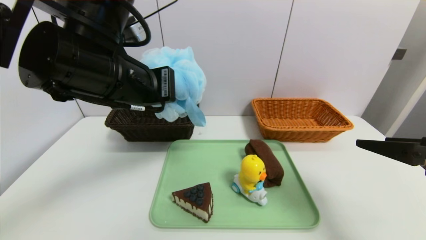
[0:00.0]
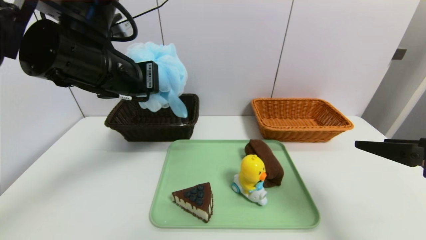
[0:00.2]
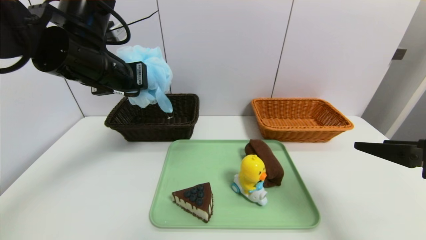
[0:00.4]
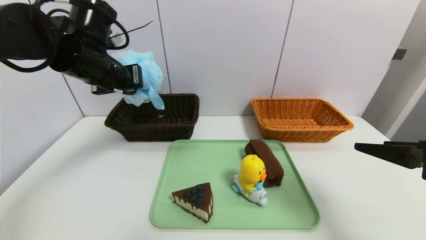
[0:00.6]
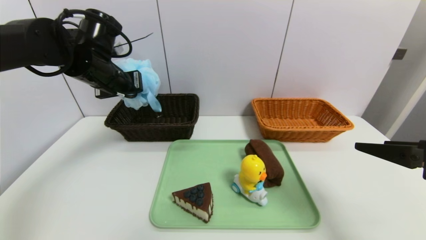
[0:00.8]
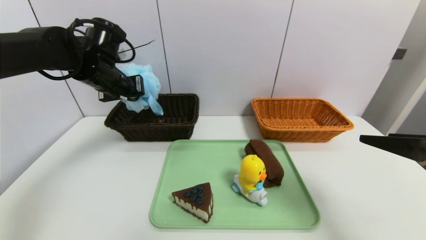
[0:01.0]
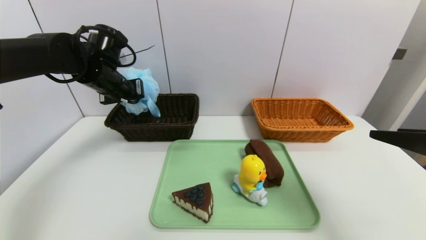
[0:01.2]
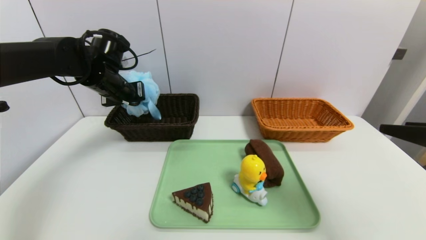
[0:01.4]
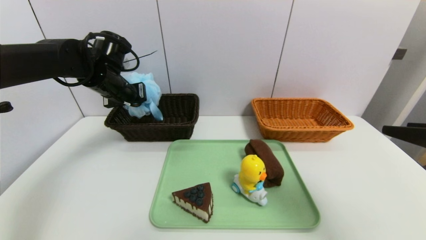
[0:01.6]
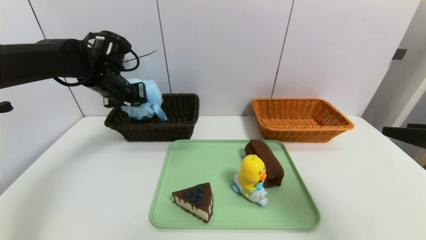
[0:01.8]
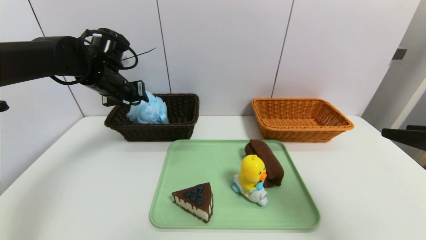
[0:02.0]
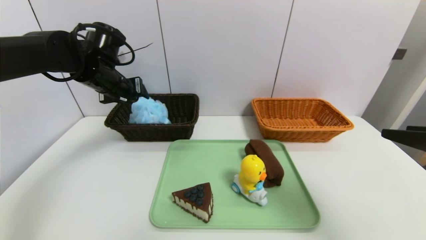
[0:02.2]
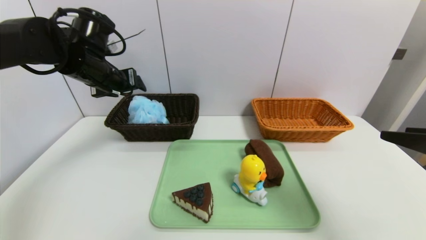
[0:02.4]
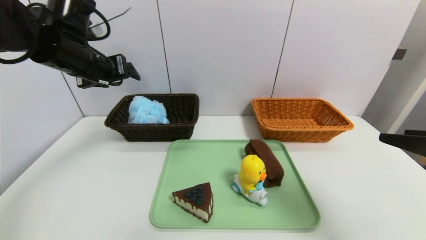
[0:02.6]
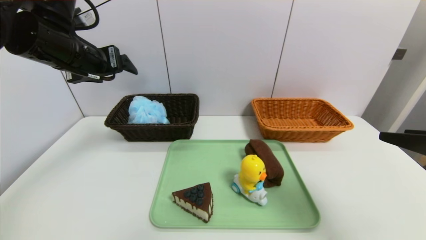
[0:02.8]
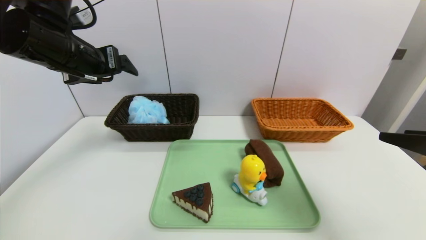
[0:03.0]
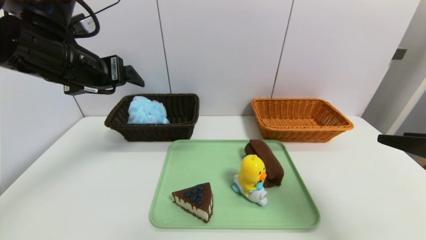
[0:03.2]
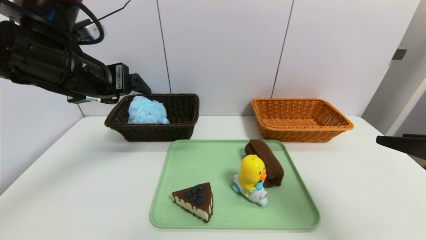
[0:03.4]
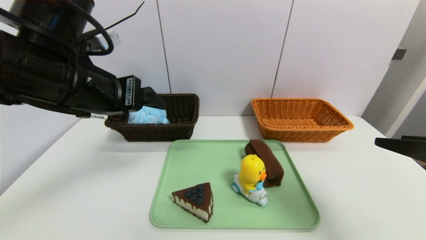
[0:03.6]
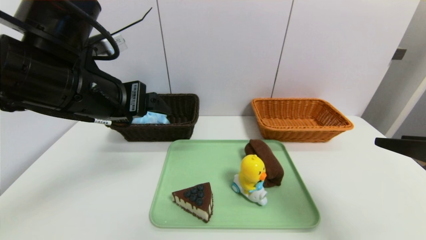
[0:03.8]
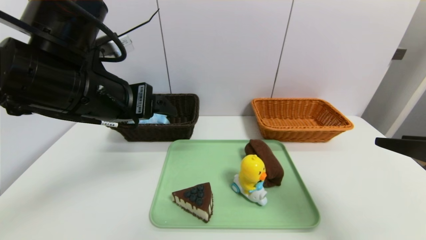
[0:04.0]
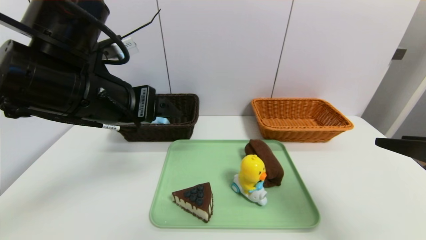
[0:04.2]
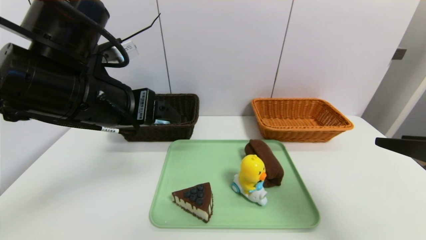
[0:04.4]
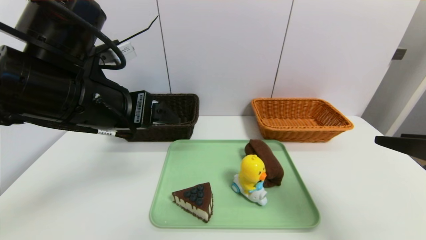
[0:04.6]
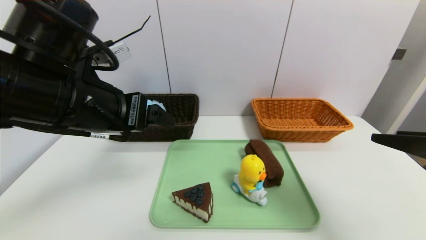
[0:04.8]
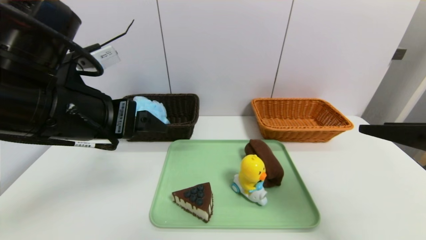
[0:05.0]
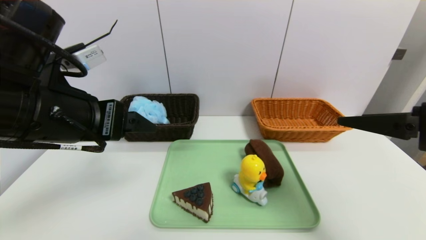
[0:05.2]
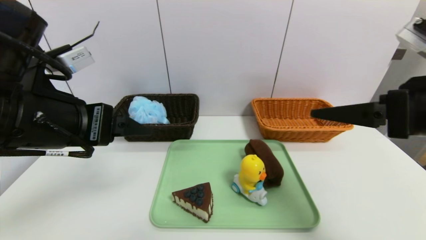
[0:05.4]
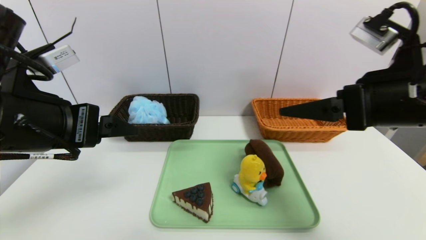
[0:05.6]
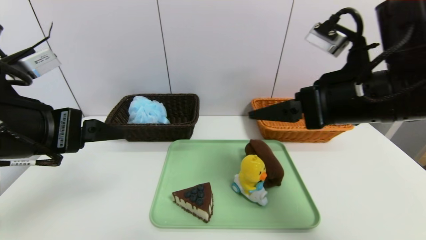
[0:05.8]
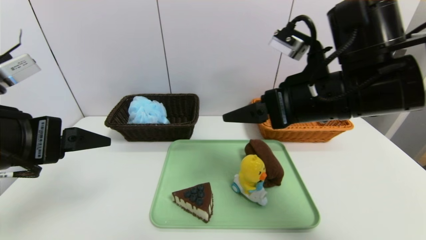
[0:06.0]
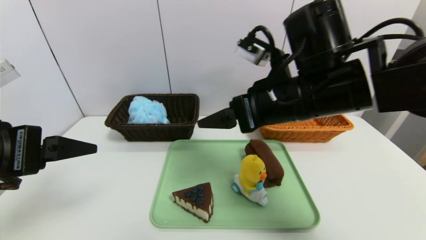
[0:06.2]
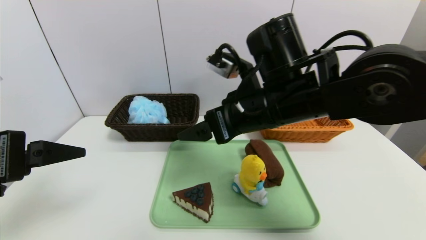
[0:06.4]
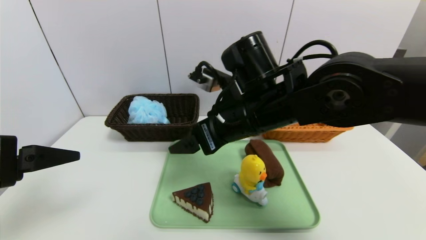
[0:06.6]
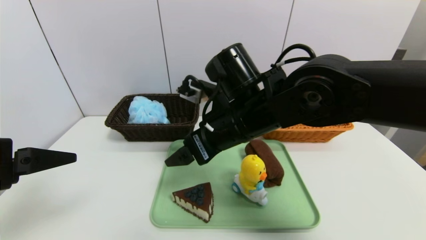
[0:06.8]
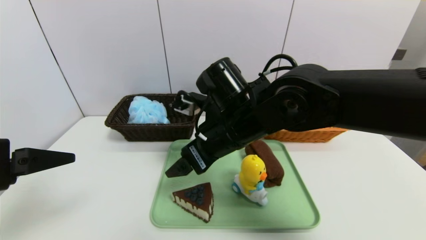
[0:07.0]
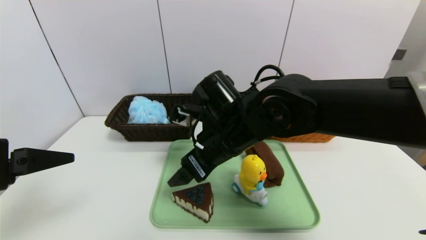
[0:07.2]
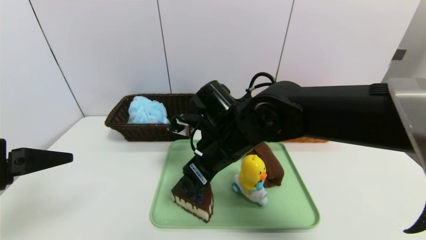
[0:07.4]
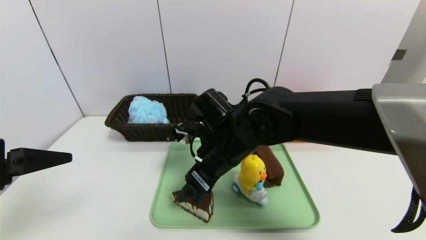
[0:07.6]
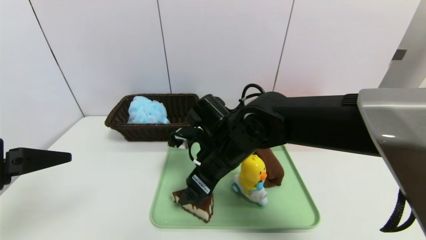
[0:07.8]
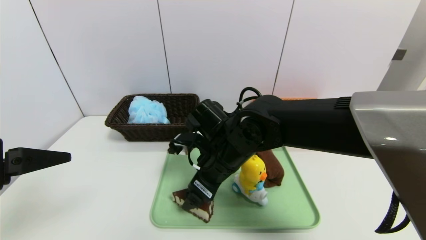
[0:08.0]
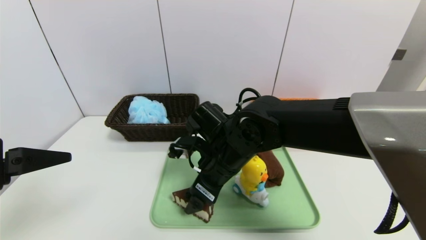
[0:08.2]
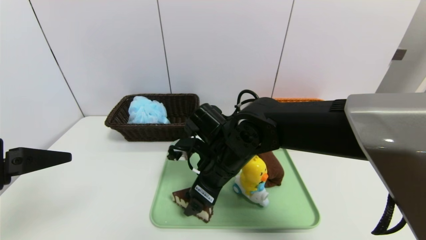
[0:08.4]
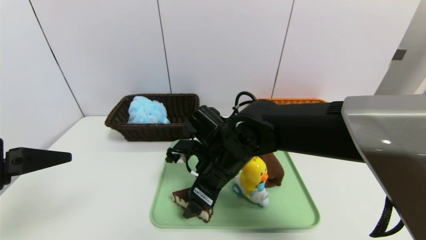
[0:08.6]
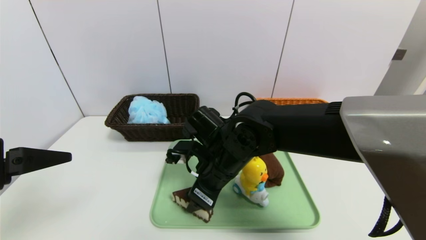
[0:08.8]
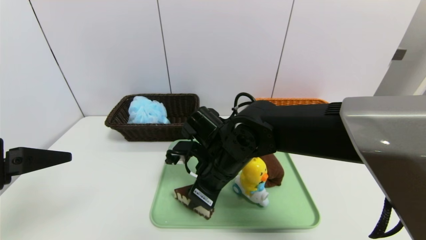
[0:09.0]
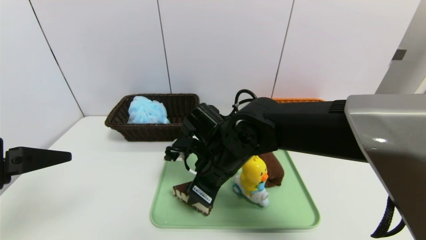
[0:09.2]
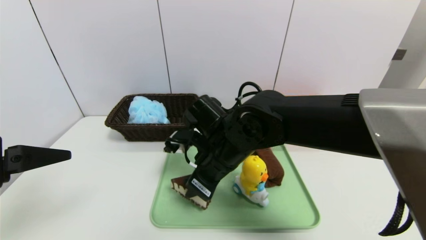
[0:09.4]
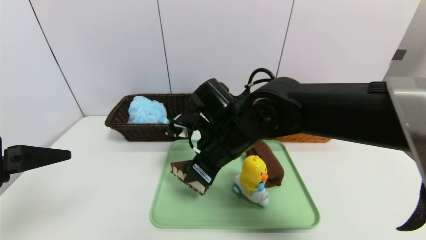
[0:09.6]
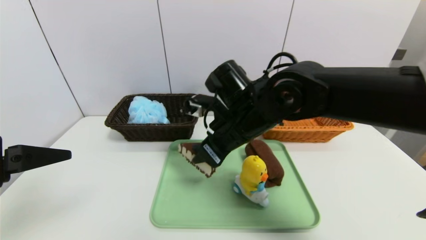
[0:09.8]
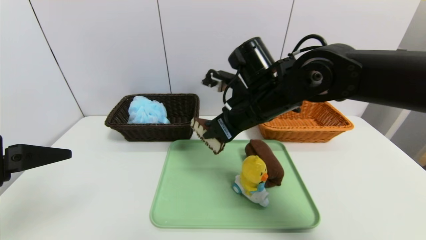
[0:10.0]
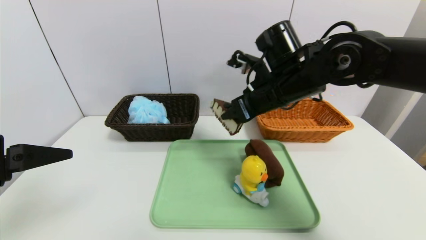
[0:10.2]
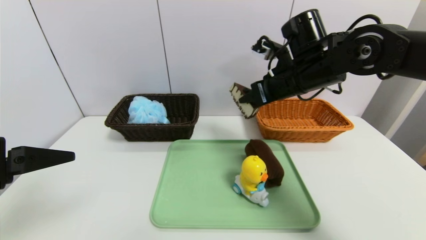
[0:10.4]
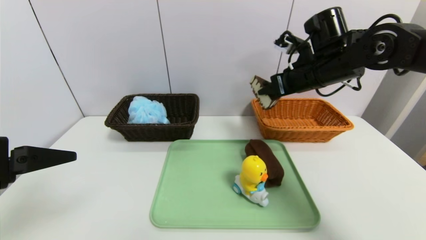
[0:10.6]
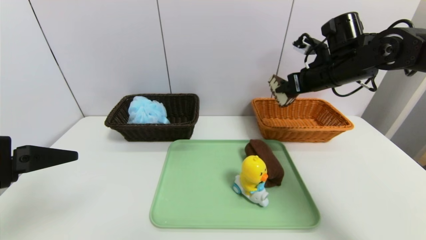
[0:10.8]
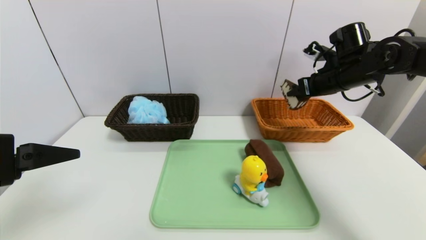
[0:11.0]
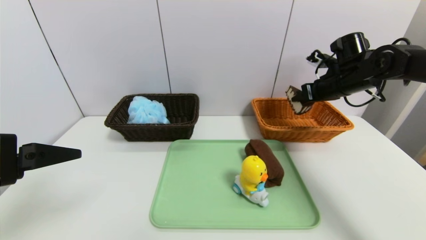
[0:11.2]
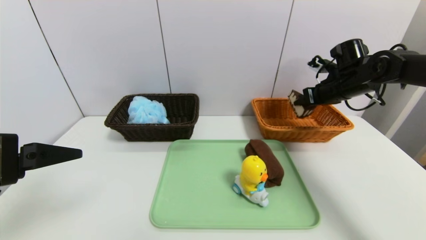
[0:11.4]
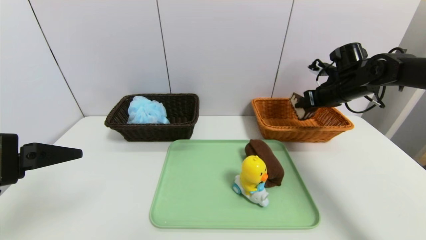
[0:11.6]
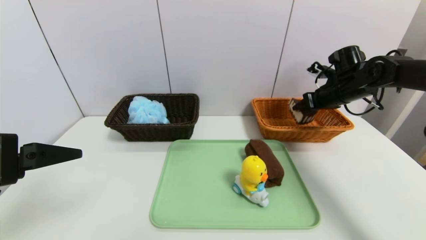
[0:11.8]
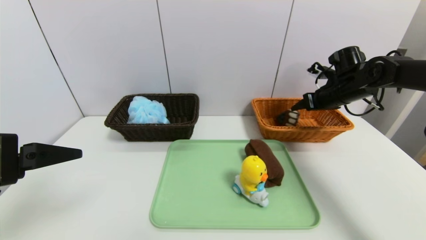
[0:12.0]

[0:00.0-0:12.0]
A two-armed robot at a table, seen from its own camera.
Task of the whole recording: place the food in the right basket with the right gripper, and place the non food items in the left basket with the left gripper.
Step, 0:00.0 to 0:02.2: Grasp the shower sphere and put it in the left basket.
0:00.0 to 0:01.6: The left gripper moves forward, to the left and downward, some 20 cm.
0:01.6 to 0:03.0: The left gripper moves backward and upward, roughly 15 cm, and opens its fingers.
0:03.0 to 0:04.4: The left gripper travels backward and to the right by about 10 cm.
0:04.4 to 0:06.0: The left gripper heads to the left and backward, covering some 10 cm, while the right gripper shifts about 20 cm to the left and forward.
0:06.0 to 0:07.6: The right gripper goes approximately 15 cm to the left and downward.
0:07.6 to 0:09.0: The right gripper closes up.
0:09.0 to 0:10.4: The right gripper moves to the right, upward and forward, some 20 cm.
0:10.4 to 0:12.0: The right gripper heads to the right, forward and downward, covering roughly 20 cm, and opens its fingers.

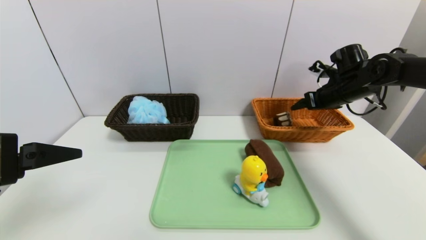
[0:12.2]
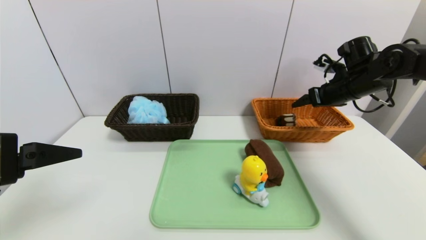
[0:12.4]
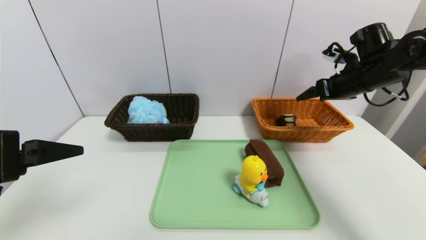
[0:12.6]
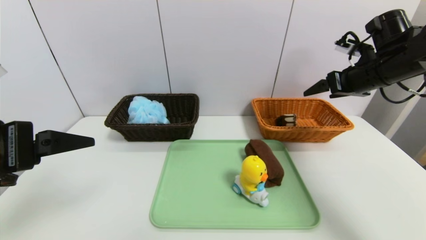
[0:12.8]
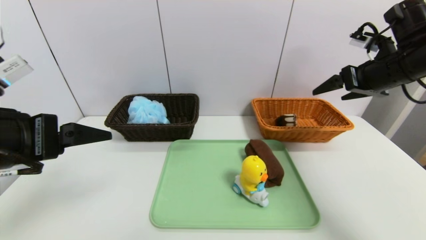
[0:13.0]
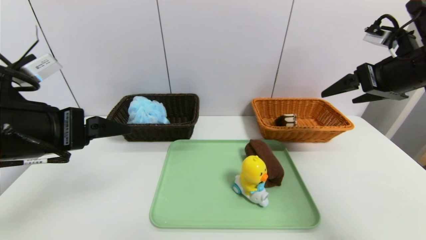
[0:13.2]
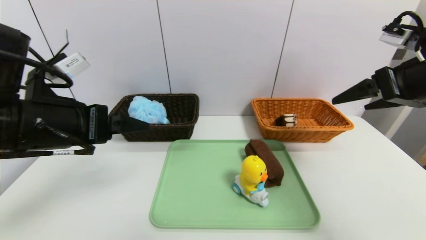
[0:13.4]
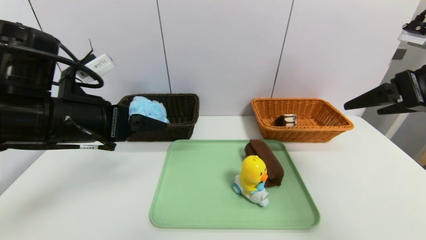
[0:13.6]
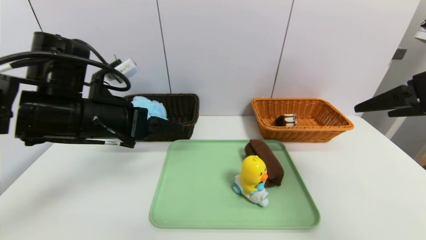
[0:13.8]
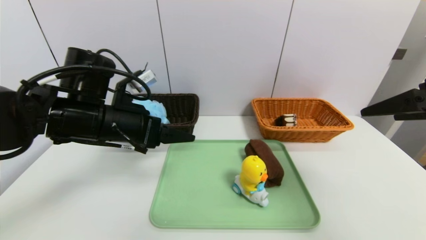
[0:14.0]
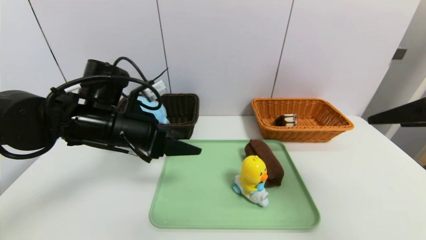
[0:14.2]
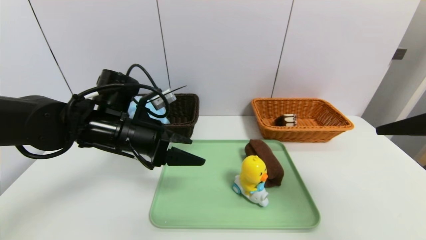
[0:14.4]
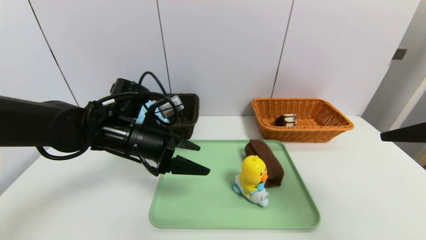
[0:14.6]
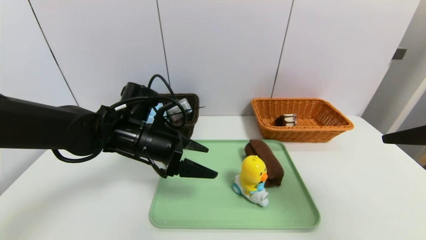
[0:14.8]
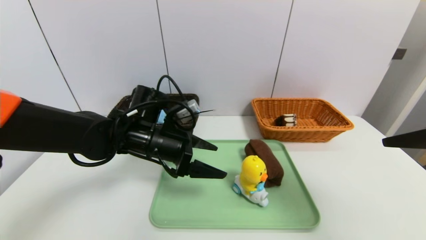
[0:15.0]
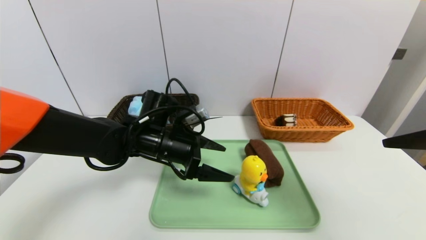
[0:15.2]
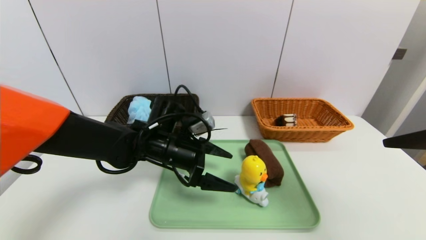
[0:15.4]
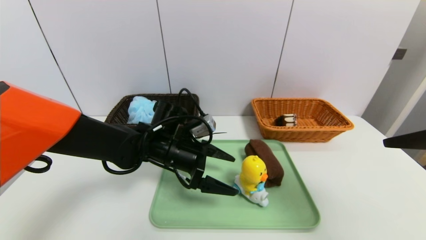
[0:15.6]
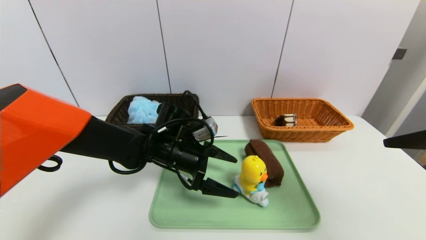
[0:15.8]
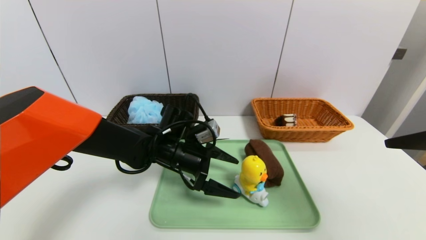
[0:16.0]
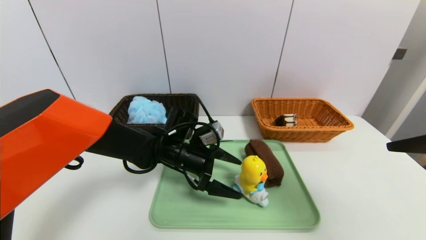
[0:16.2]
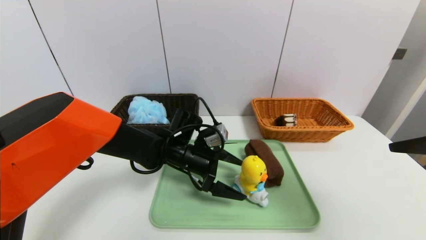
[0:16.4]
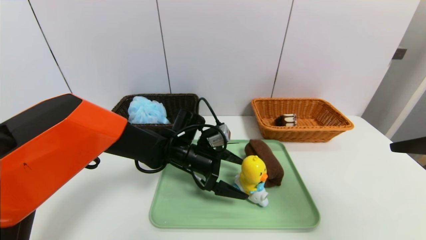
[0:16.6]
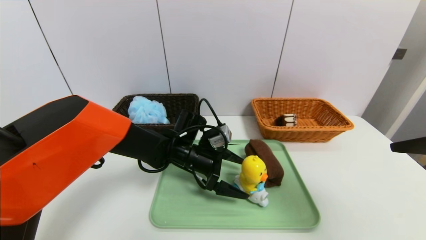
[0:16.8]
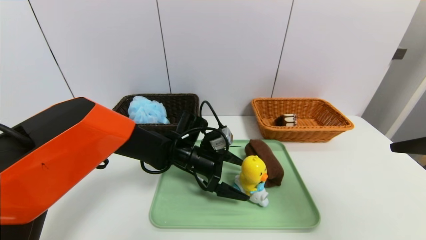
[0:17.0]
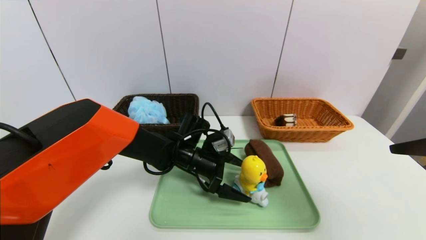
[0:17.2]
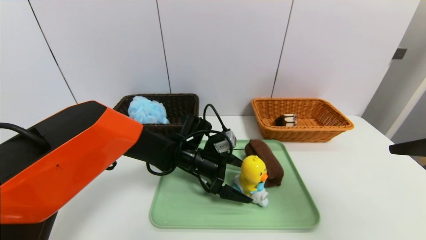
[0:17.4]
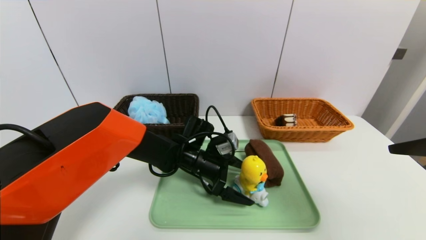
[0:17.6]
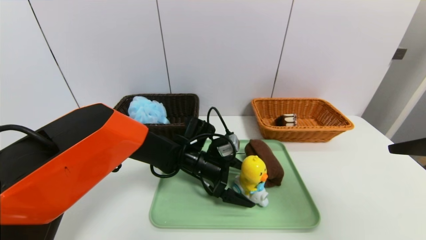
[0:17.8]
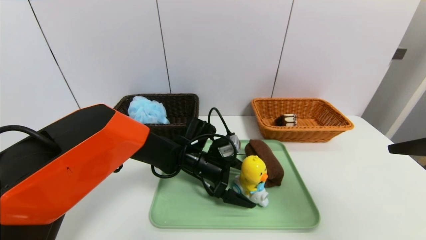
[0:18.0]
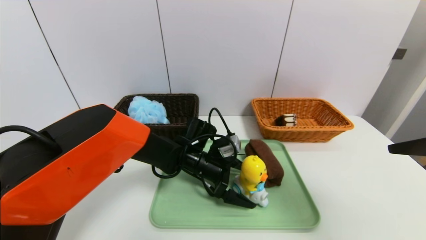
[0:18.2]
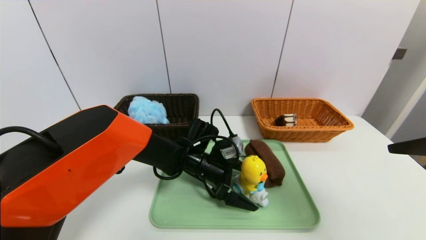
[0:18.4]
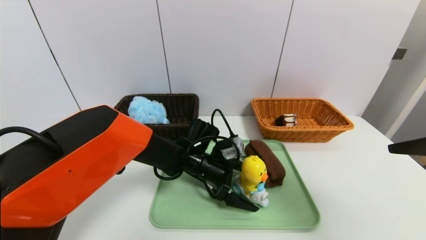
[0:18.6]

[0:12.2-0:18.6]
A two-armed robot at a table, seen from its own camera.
Task of the whole recording: place the food in the right basket with the right gripper, and place the non food items in the left basket with the left gripper.
0:12.2 to 0:13.8: The left gripper is displaced forward and to the right by about 15 cm. The right gripper heads backward and upward, covering roughly 25 cm.
0:13.8 to 0:15.4: The right gripper is displaced backward by roughly 5 cm. Meanwhile the left gripper shifts approximately 15 cm downward, to the right and forward.
0:15.4 to 0:17.0: The left gripper travels downward by about 5 cm.
0:17.0 to 0:18.6: There are only small adjustments of the grippers.
